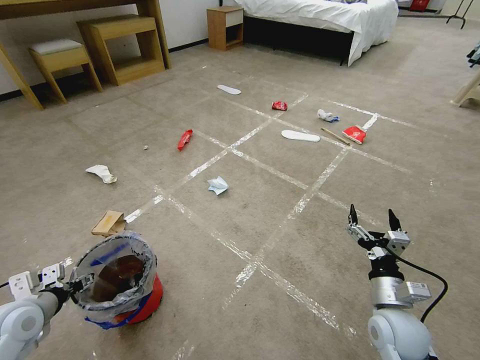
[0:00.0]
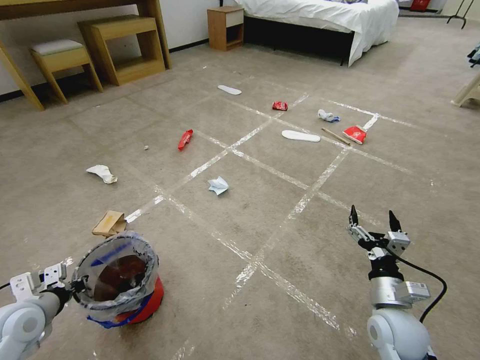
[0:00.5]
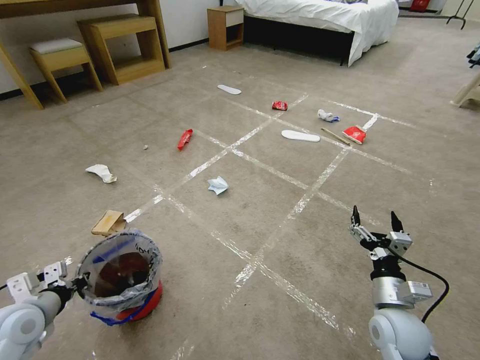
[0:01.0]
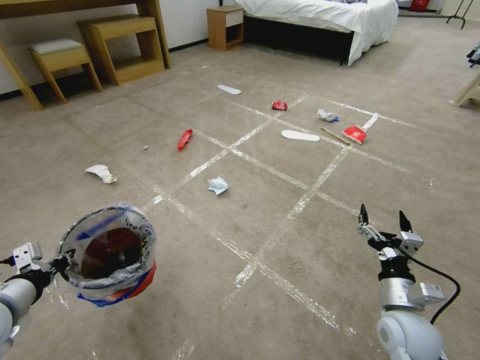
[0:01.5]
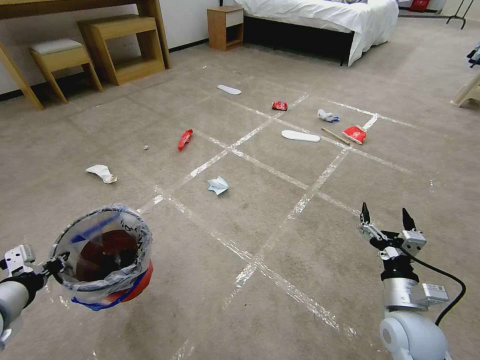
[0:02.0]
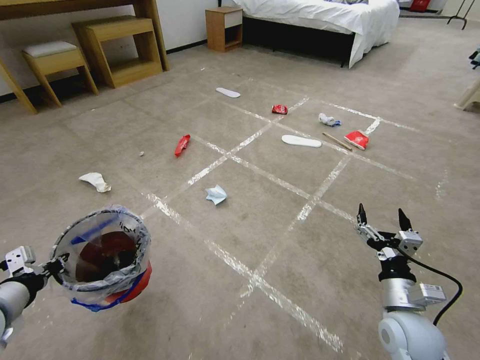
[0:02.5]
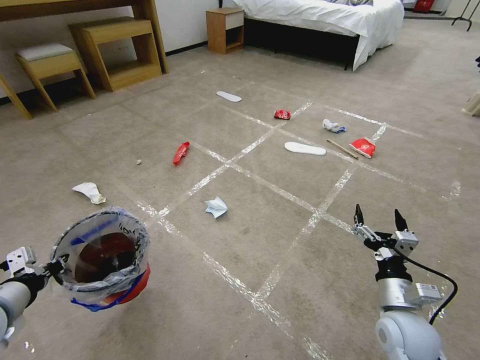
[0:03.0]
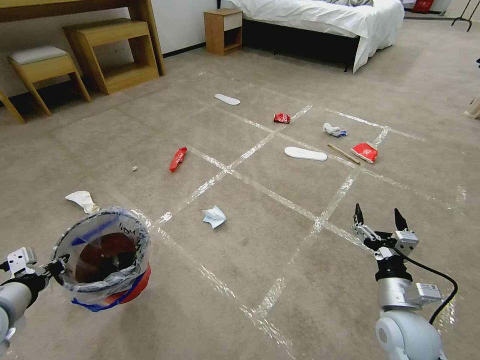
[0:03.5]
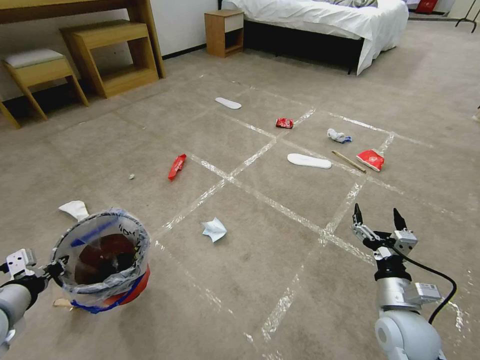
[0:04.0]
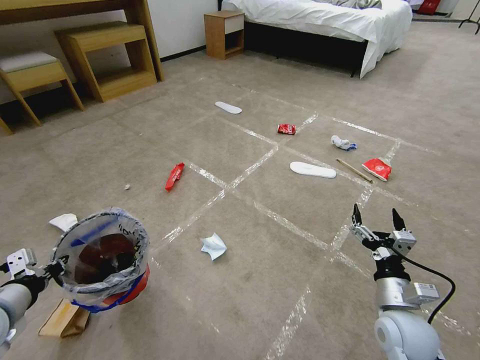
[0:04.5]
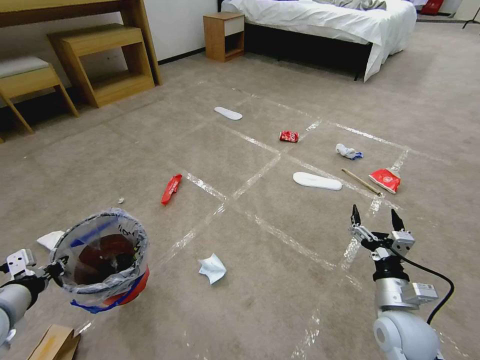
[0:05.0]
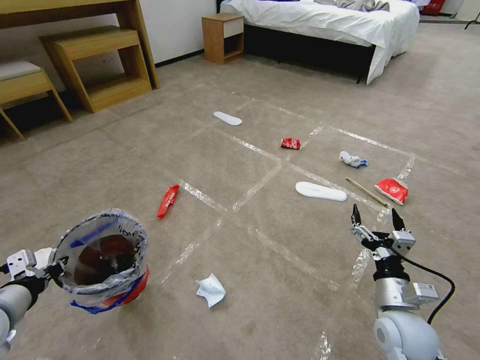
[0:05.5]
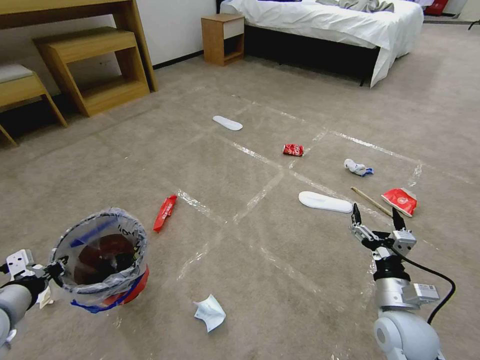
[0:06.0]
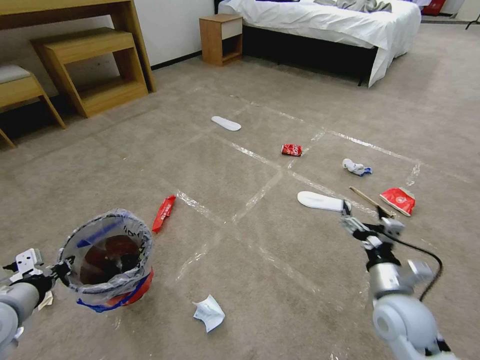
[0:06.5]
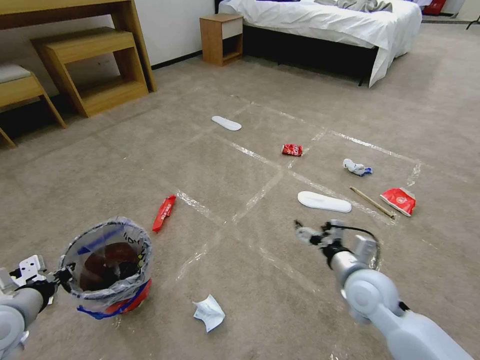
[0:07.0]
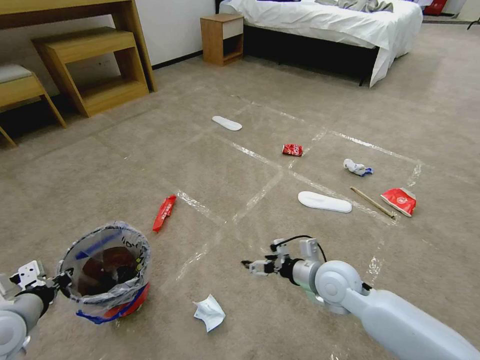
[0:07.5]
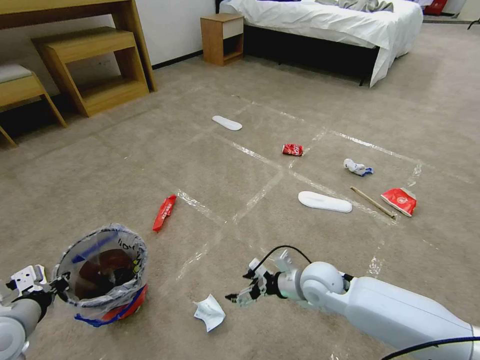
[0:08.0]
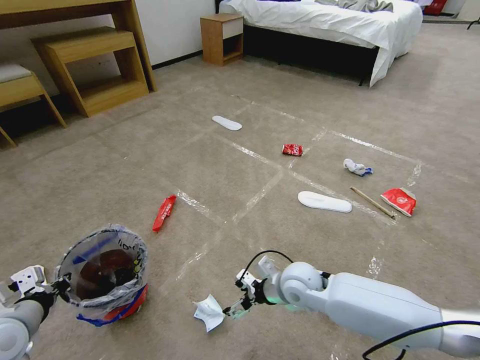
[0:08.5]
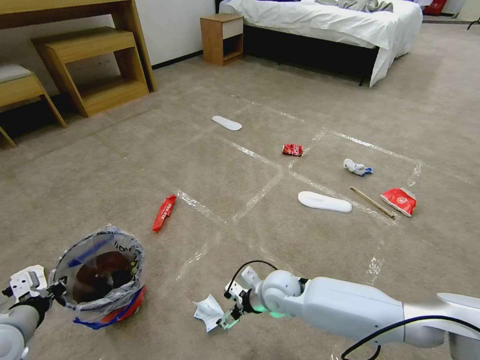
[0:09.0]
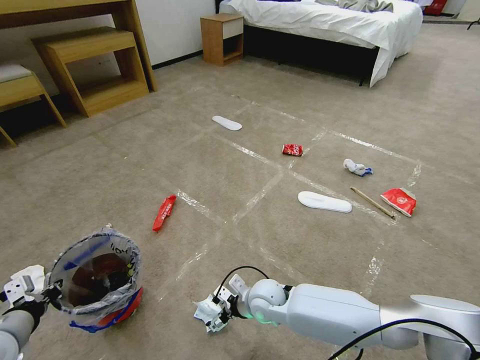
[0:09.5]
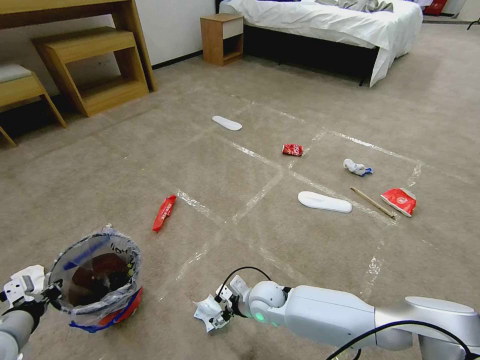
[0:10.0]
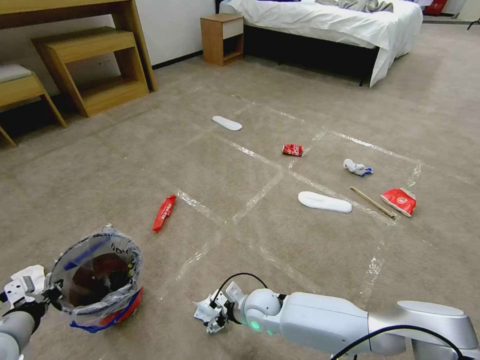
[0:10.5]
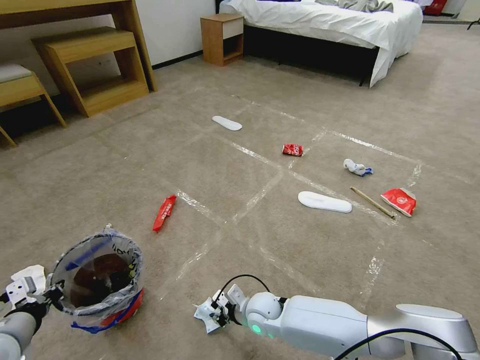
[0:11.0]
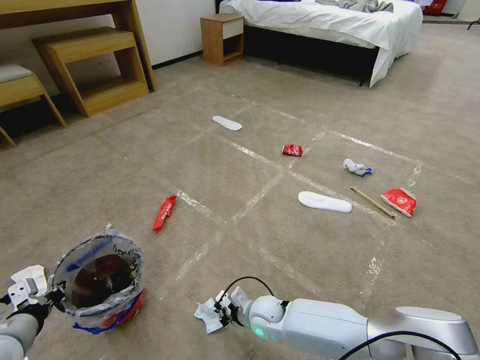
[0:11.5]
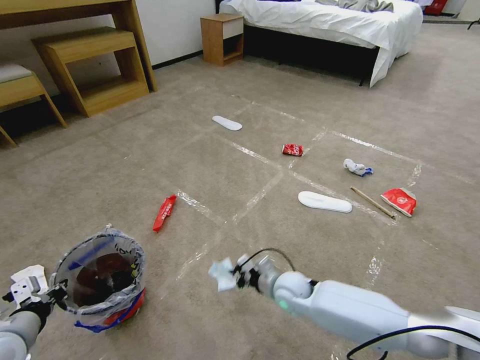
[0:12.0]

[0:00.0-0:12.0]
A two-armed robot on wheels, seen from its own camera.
Task of the whole recording: Pick up the trash bin and place the garbage on the floor into it.
0:00.0 to 0:02.0: The left gripper heads upward, covering approximately 10 cm, and closes its fingers.
0:06.0 to 0:08.0: The right gripper is displaced to the left and forward by about 15 cm.
0:08.0 to 0:10.0: The right gripper goes approximately 15 cm to the left and downward.
0:10.0 to 0:12.0: The right gripper moves to the right, about 5 cm, and closes its fingers.

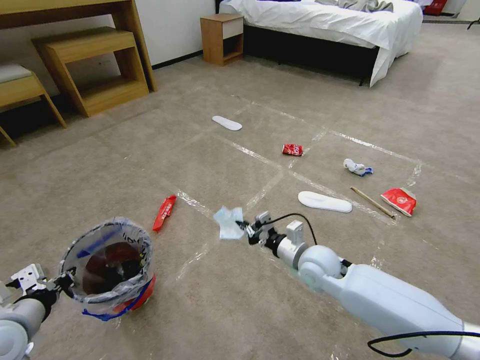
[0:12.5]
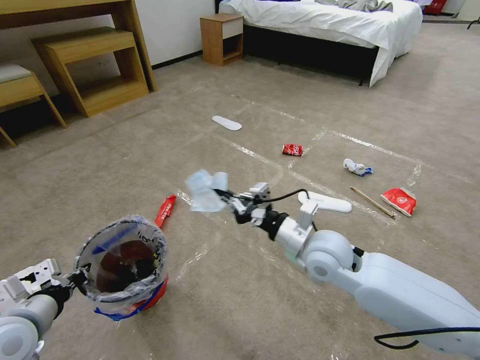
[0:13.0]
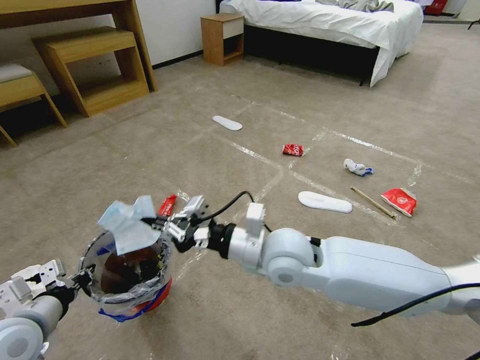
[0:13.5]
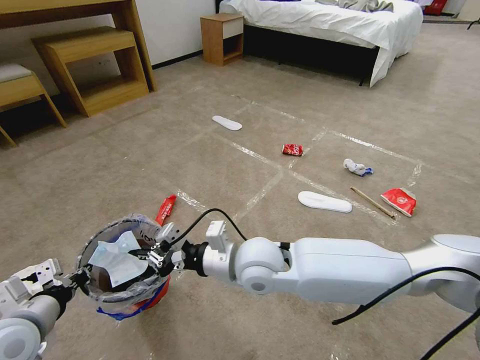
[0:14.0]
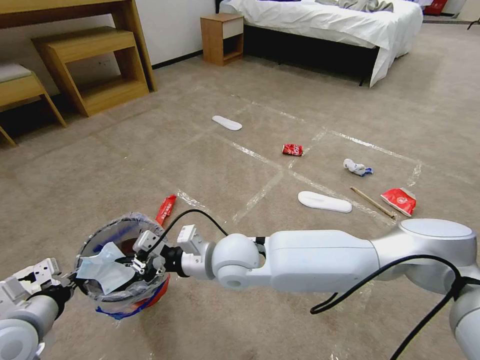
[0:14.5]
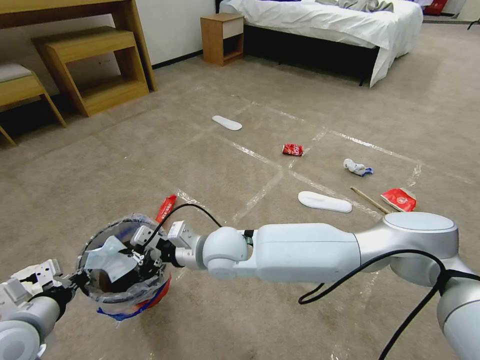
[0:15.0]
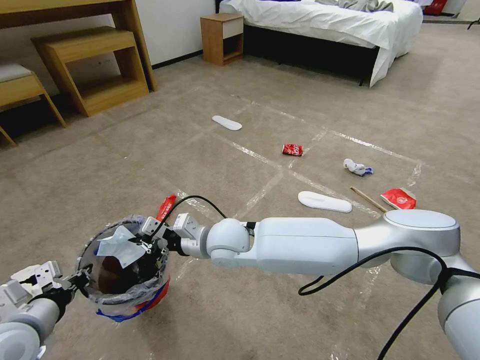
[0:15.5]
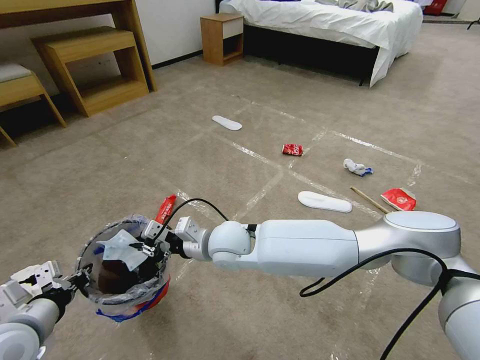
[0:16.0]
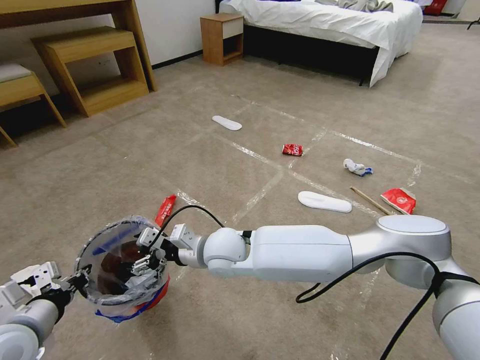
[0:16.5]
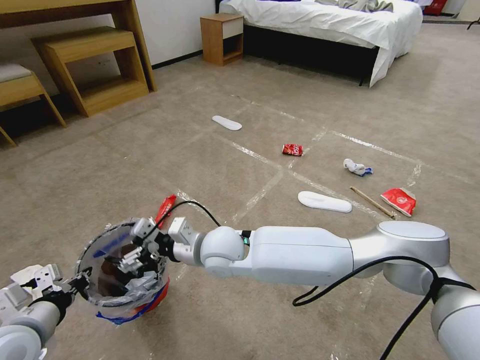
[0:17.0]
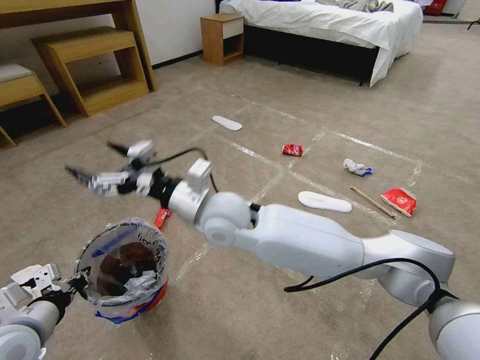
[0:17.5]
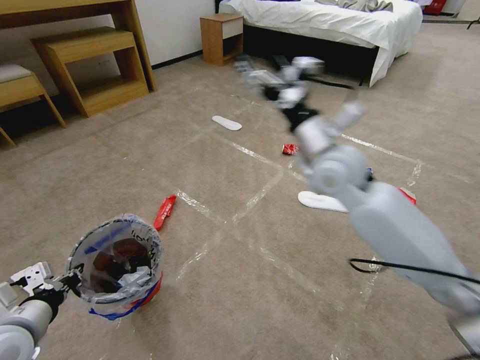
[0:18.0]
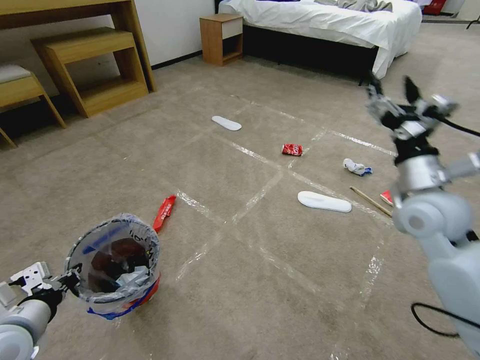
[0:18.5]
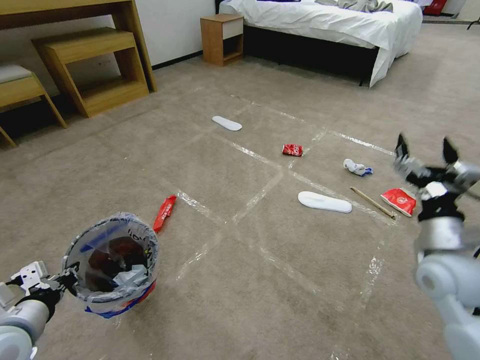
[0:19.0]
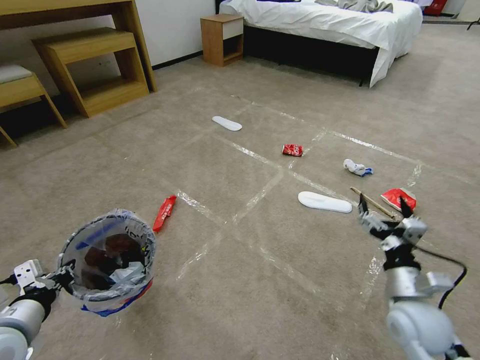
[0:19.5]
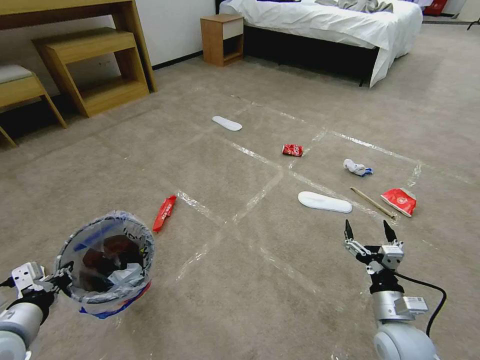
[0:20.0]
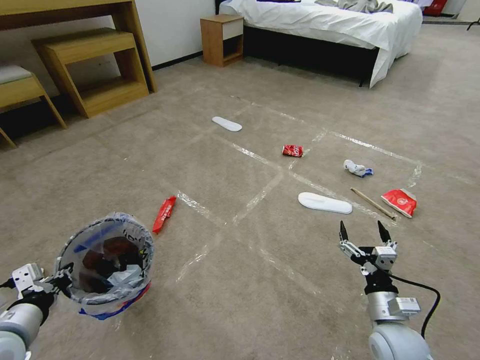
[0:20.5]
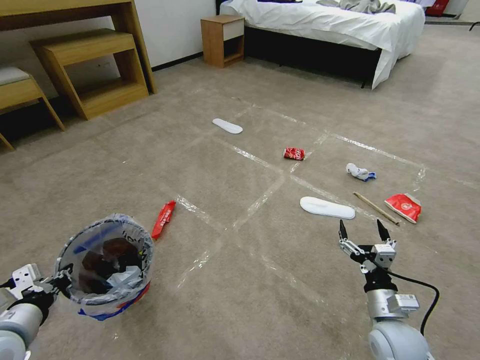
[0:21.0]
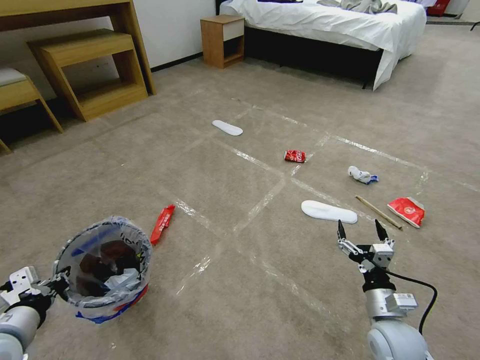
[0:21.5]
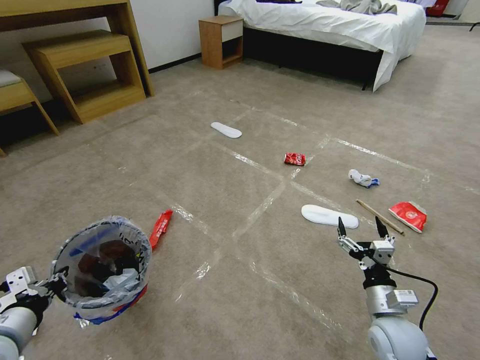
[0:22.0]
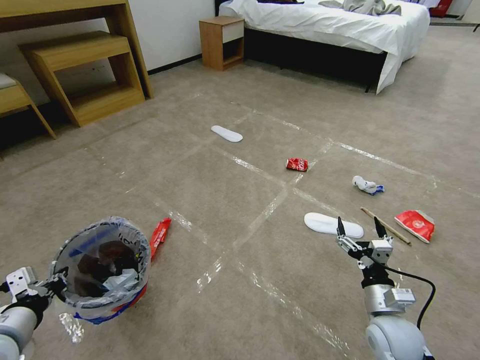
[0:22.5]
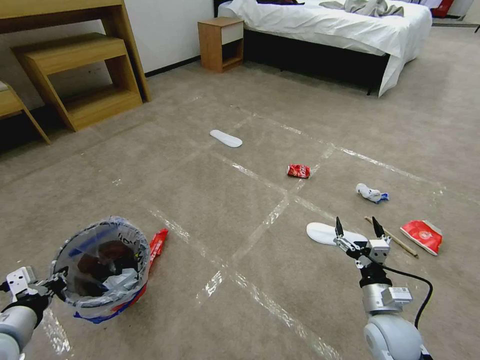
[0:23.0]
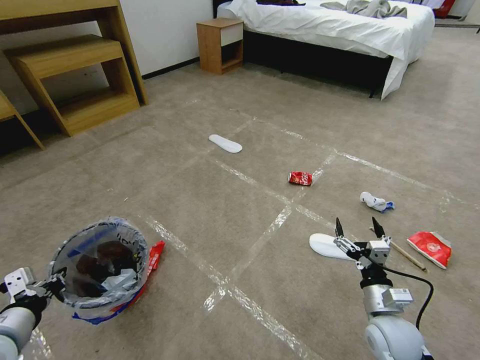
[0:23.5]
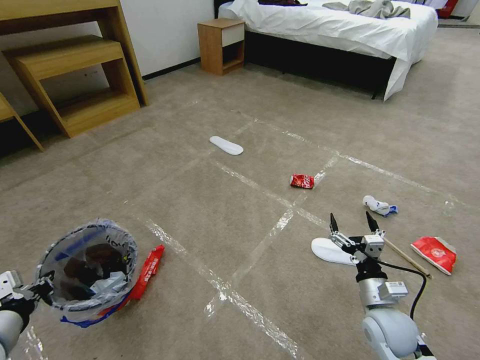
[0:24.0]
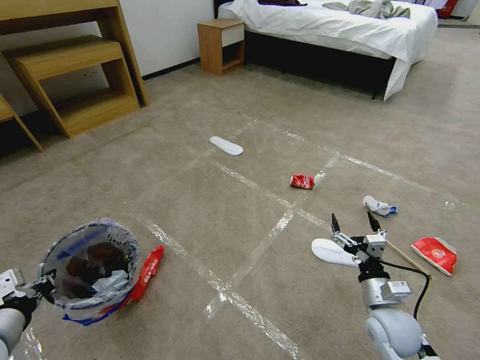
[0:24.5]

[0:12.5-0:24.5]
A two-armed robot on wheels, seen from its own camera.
Task of the whole recording: Pick up the trash bin and place the garbage on the floor into it.
0:12.5 to 0:14.5: The right gripper shifts roughly 25 cm to the left and upward.
0:14.5 to 0:16.5: The right gripper changes place by approximately 5 cm, and opens.
0:16.5 to 0:18.5: The right gripper is displaced to the right by roughly 40 cm.
0:18.5 to 0:20.5: The right gripper moves downward and backward, about 30 cm.
0:20.5 to 0:22.5: The grippers make only small movements.

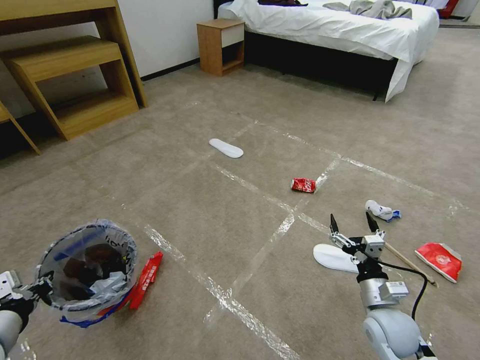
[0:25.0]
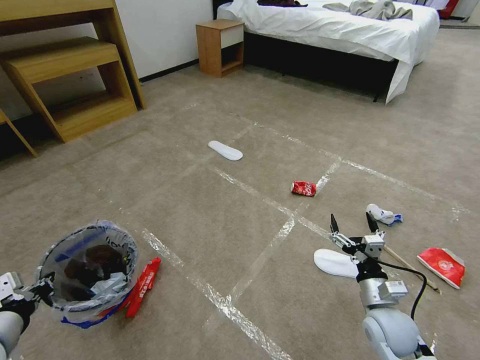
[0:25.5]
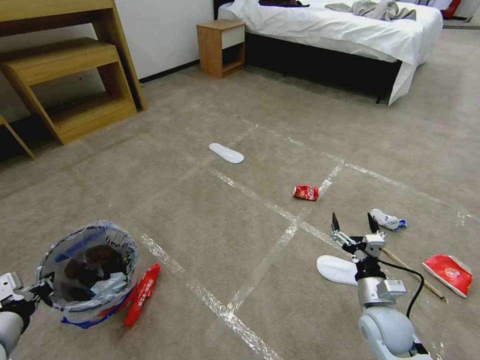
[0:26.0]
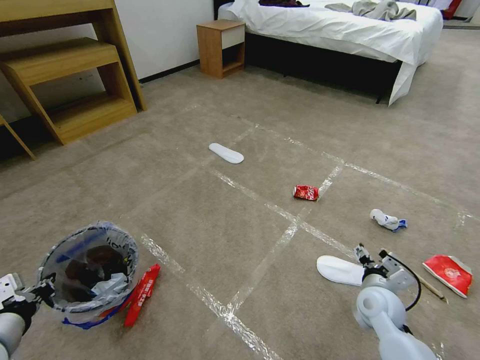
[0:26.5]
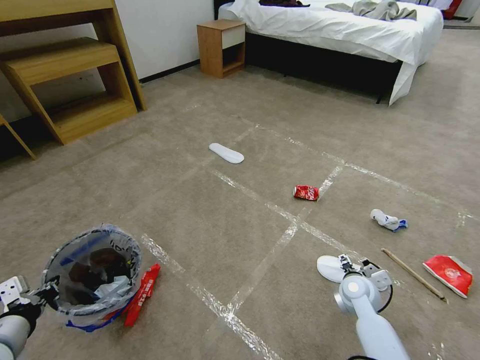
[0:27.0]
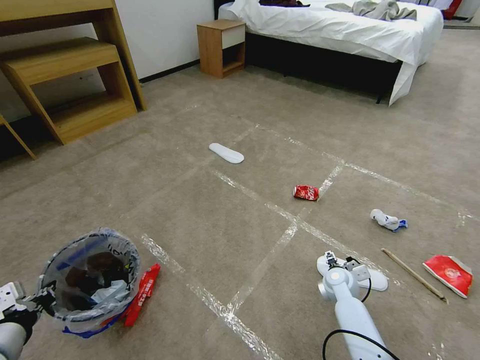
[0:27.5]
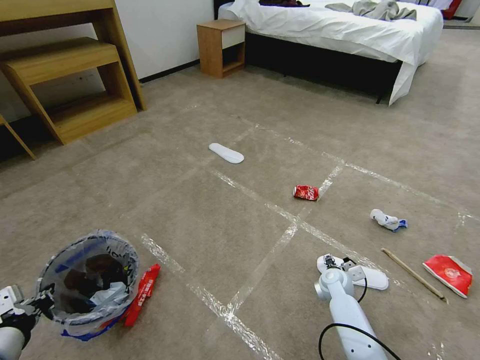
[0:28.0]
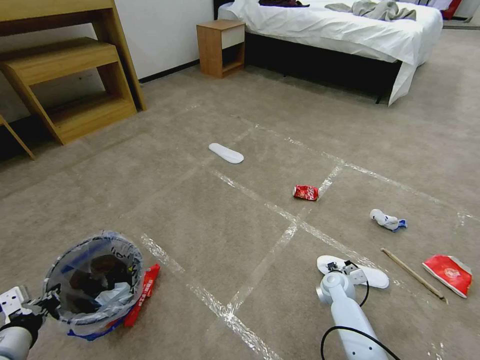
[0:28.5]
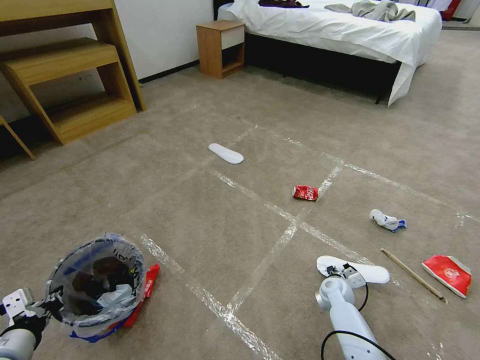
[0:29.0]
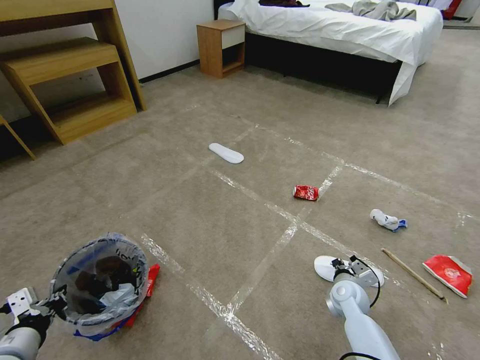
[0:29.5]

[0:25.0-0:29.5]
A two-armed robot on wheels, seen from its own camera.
Task of the whole recording: Pick up the trash bin and place the garbage on the floor into it.
0:25.0 to 0:27.0: The right gripper is displaced forward by approximately 10 cm.
0:27.0 to 0:29.5: The right gripper closes up.
